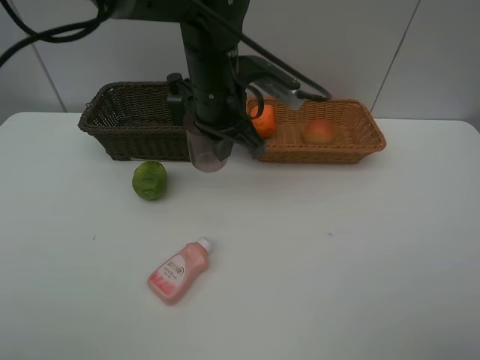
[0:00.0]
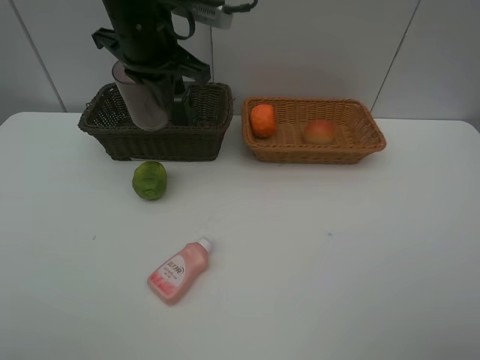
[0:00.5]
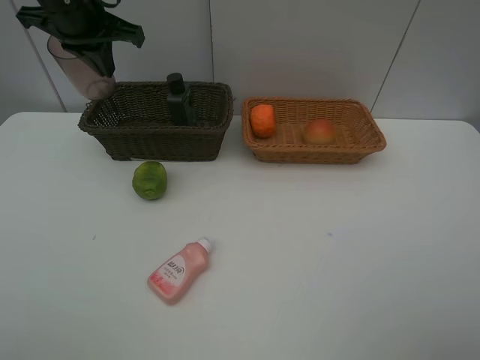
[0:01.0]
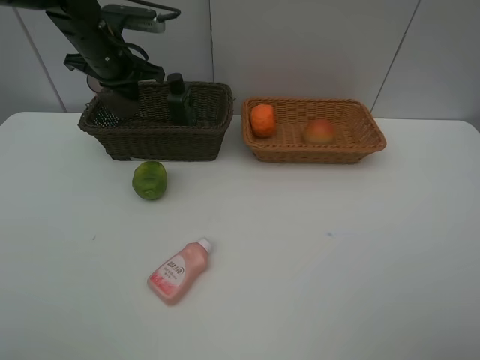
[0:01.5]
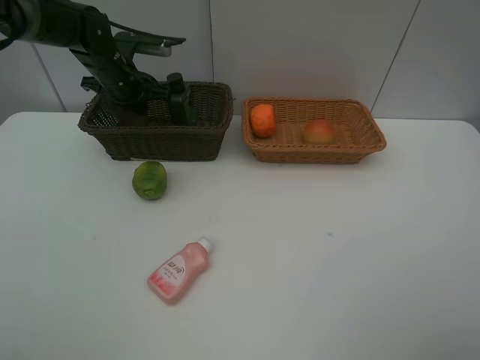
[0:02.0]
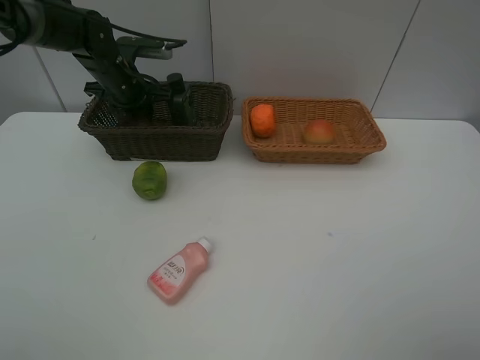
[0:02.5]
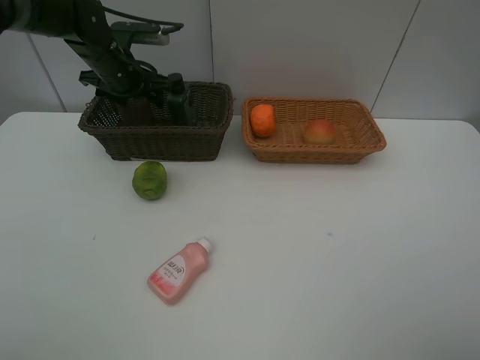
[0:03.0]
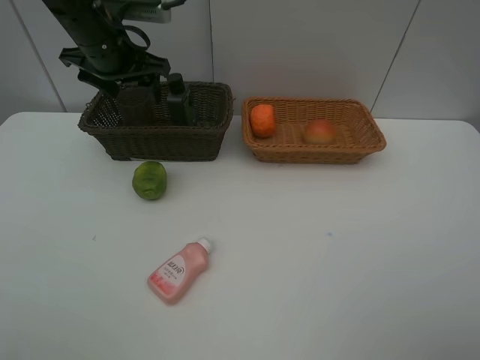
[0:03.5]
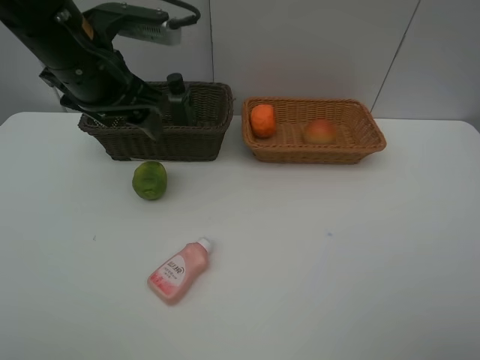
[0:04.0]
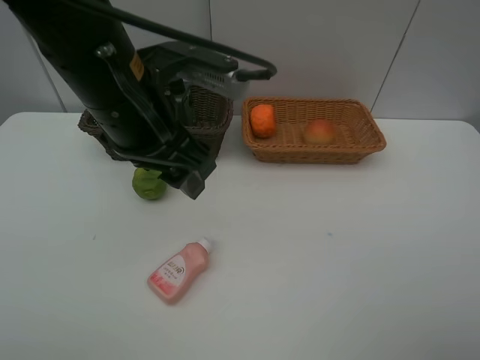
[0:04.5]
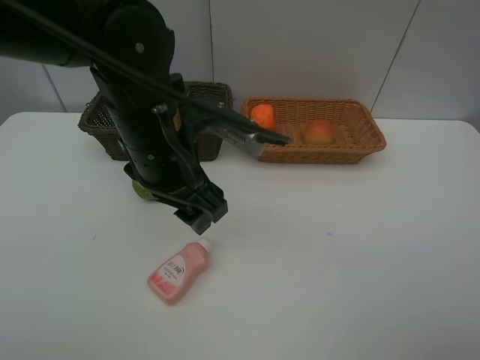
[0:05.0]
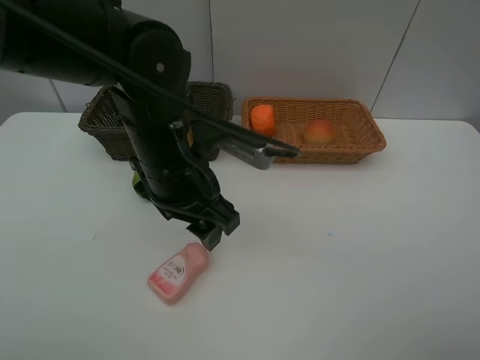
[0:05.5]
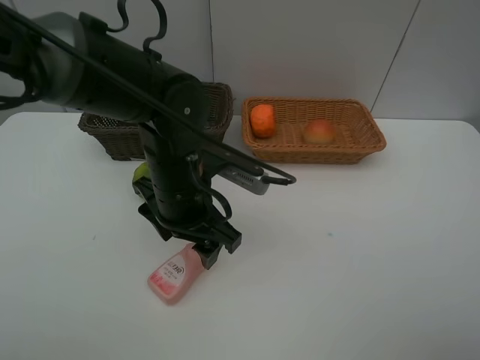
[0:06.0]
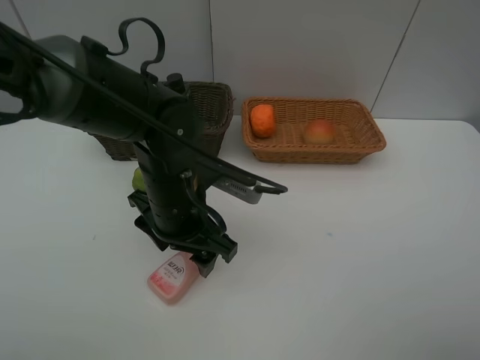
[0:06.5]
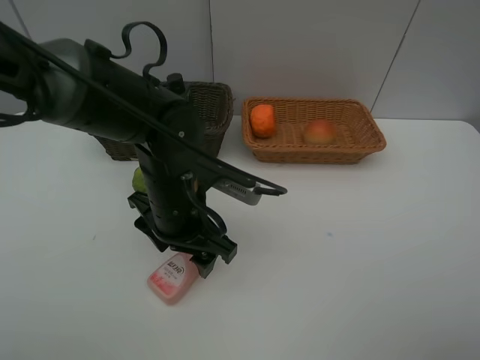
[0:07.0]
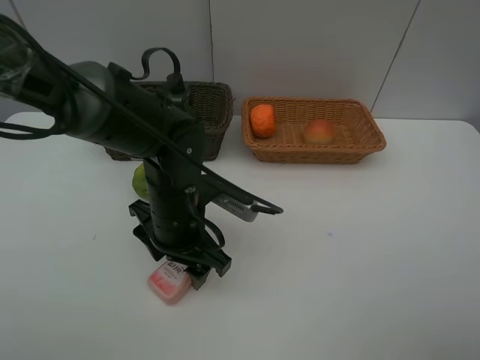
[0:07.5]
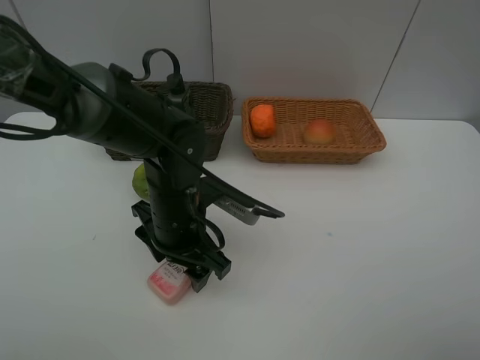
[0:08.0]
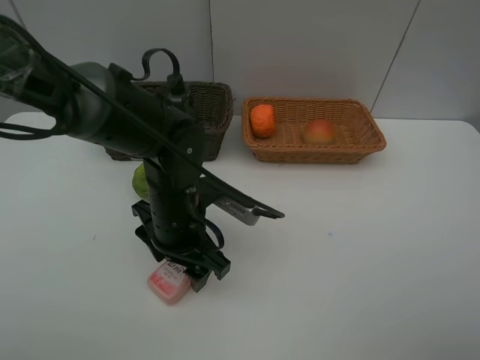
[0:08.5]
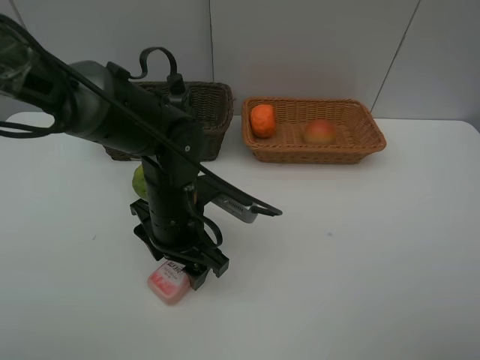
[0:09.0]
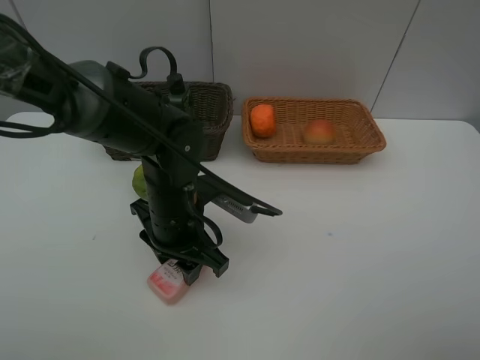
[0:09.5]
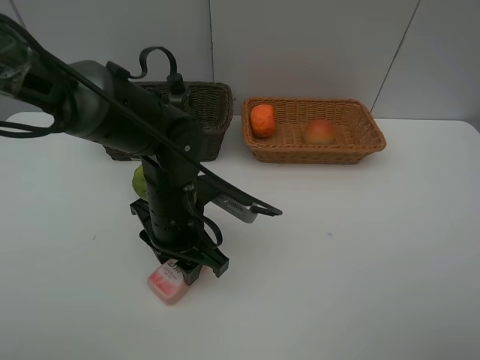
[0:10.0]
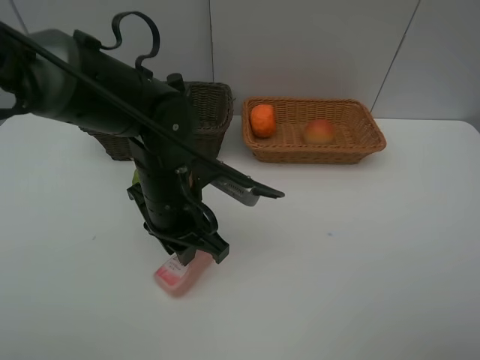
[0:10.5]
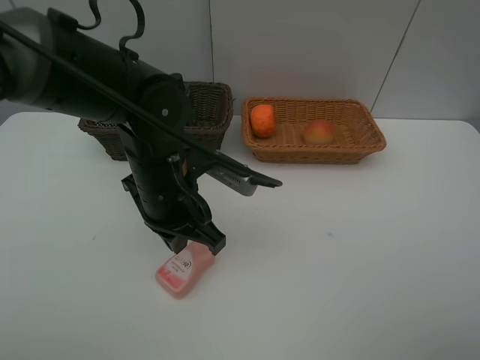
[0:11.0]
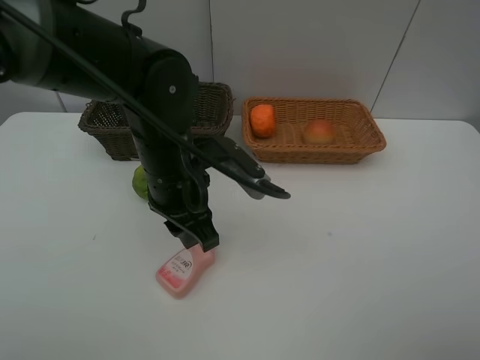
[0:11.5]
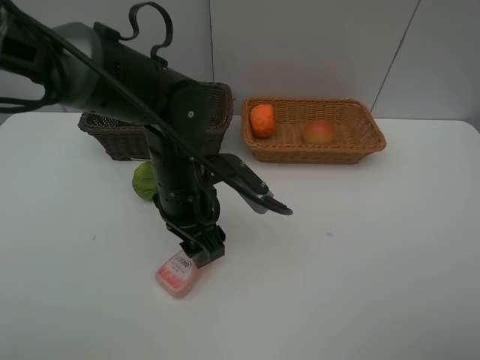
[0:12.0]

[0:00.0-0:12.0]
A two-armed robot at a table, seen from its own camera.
Task of the whole recording: place multiple objects separately in different baskets.
0:00.0 to 0:02.0: The left gripper heads to the left and forward, covering approximately 20 cm.
0:02.0 to 0:04.0: The left gripper moves backward and upward, approximately 20 cm, and opens.
0:04.0 to 0:06.0: The left gripper heads downward, to the right and backward, covering some 15 cm.
0:06.0 to 0:08.0: The grippers move only a little.
0:08.0 to 0:10.0: Both grippers stay put.
0:10.0 to 0:12.0: The left gripper closes and opens again.

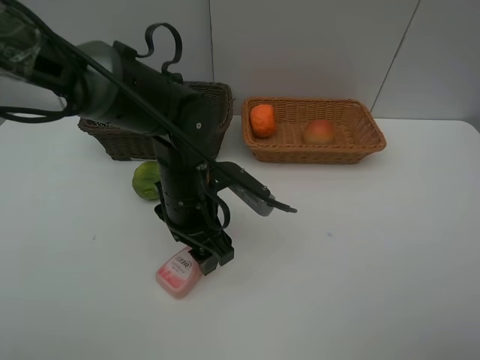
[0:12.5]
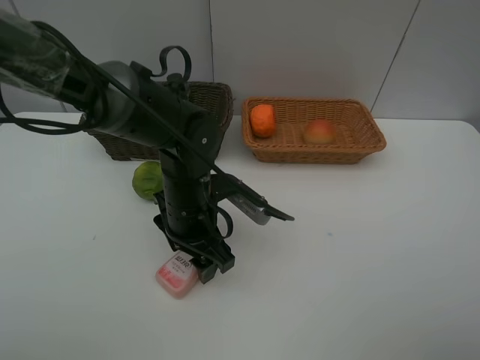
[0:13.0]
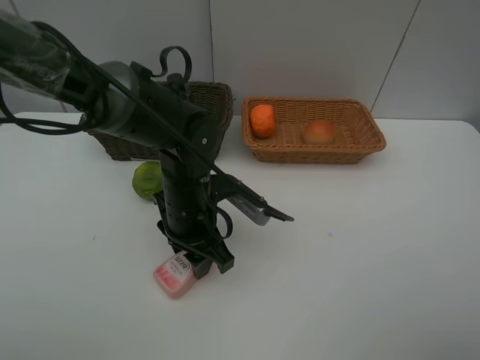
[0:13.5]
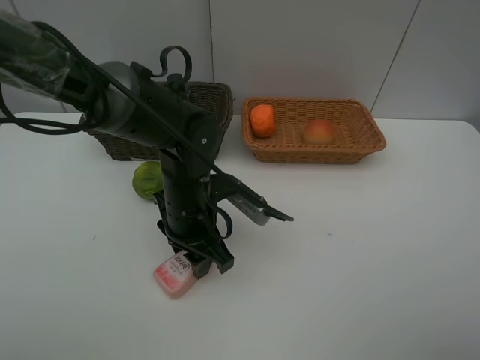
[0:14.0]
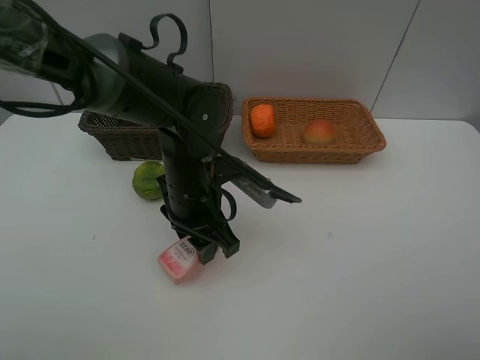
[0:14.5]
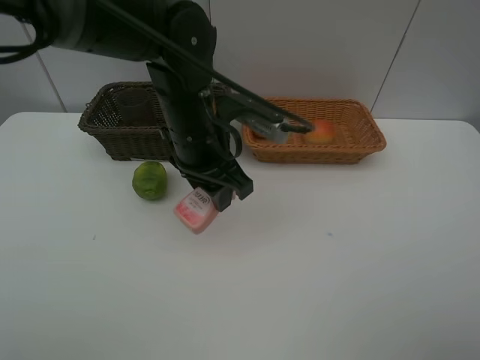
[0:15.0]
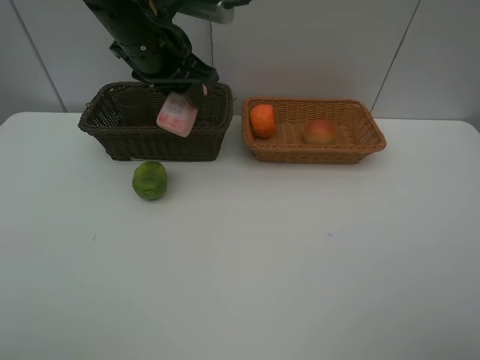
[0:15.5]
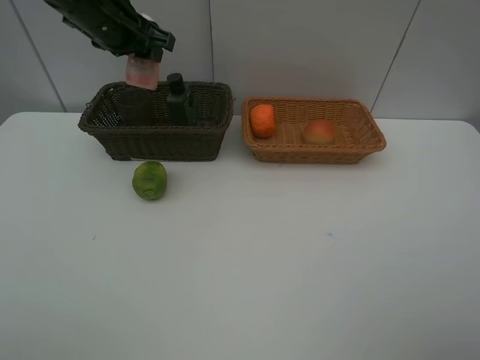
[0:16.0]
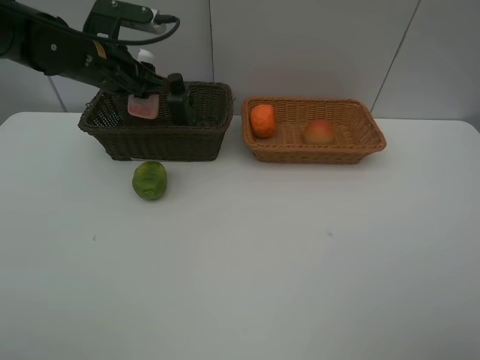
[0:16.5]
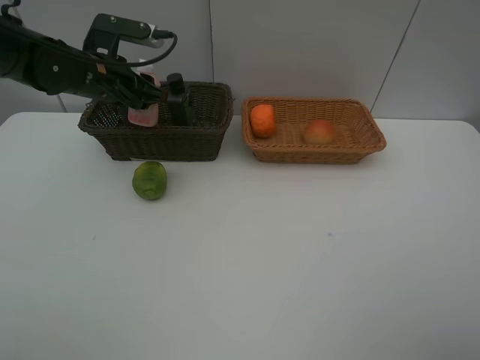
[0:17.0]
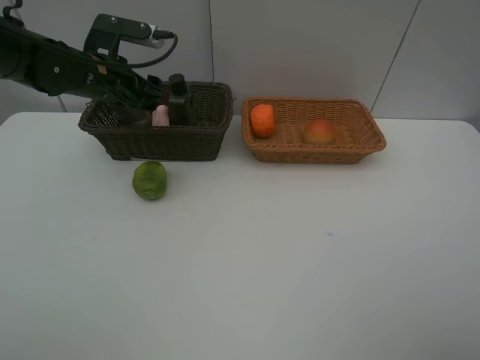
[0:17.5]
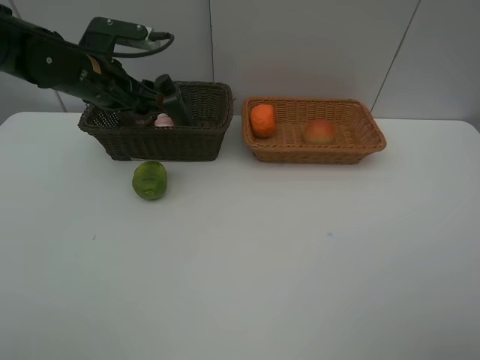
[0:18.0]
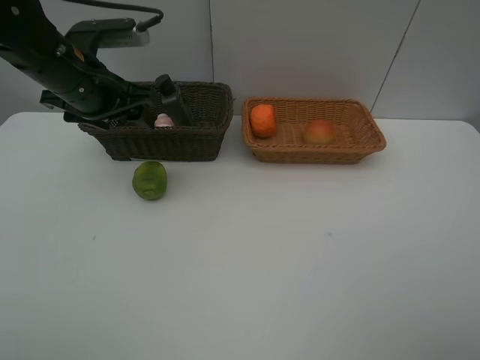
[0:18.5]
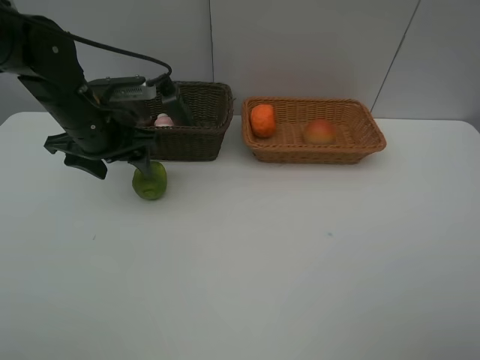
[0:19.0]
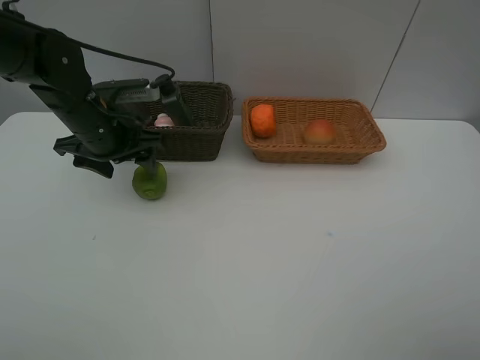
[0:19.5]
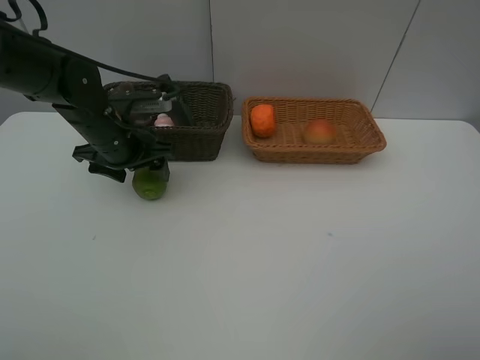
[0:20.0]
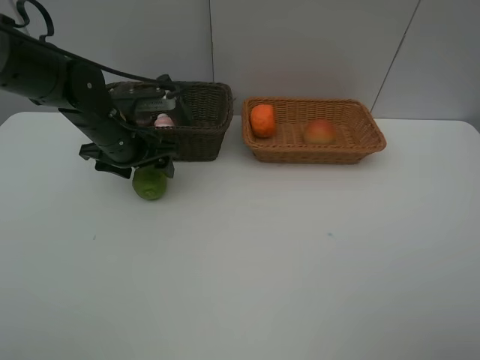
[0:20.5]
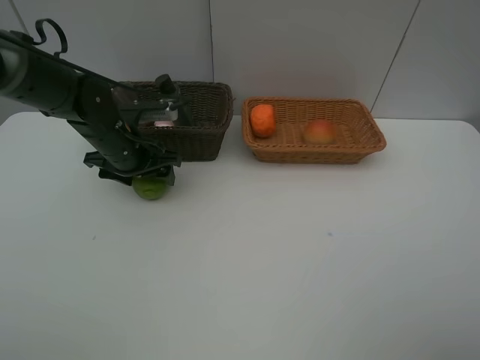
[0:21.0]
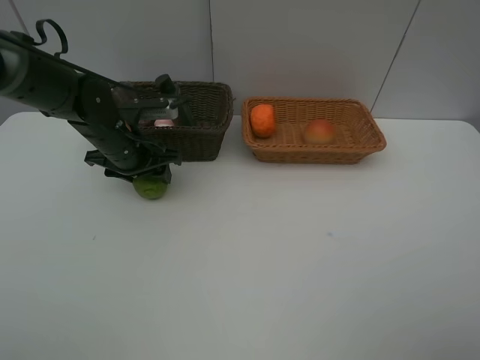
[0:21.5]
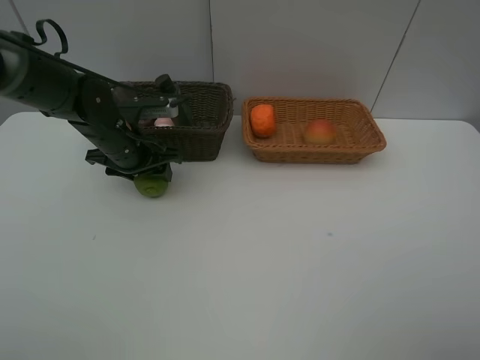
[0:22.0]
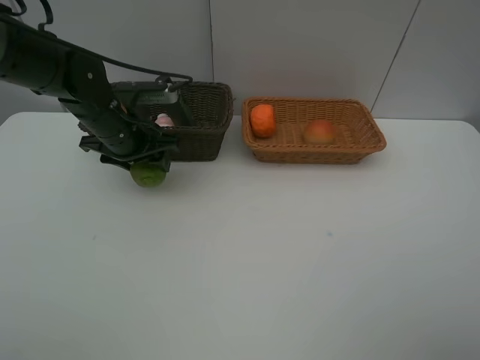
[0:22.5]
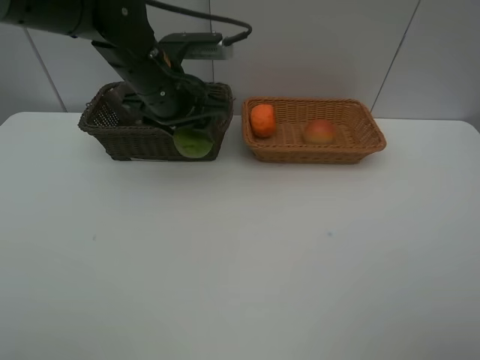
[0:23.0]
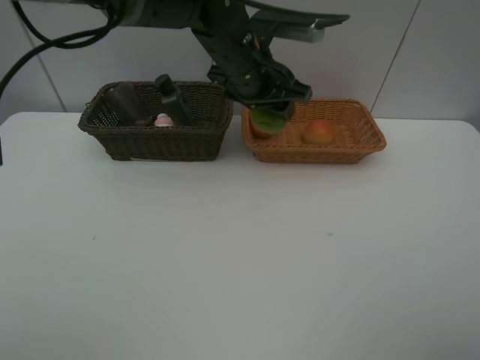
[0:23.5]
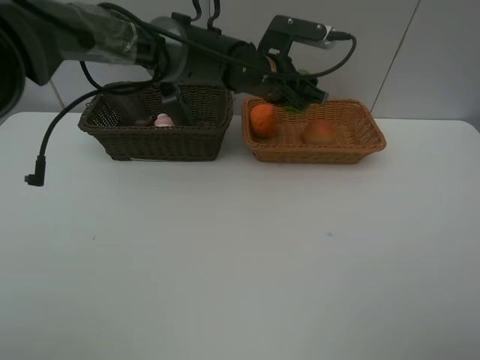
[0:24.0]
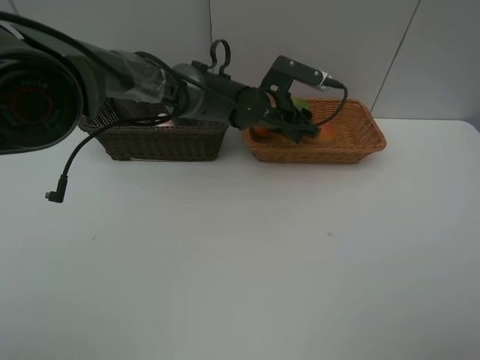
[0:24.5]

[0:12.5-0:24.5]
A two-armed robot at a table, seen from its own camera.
Task of the whole recording: place multiple objects separately in different baskets.
0:12.5 to 0:14.5: The grippers stay close to where they were, moving slightly.
0:14.5 to 0:16.5: The left gripper is displaced to the left, forward and upward by some 20 cm.
0:16.5 to 0:18.5: The left gripper travels backward by approximately 5 cm.
0:18.5 to 0:20.5: The left gripper is displaced downward by about 10 cm.
0:20.5 to 0:22.5: The grippers stay close to where they were, moving slightly.
0:22.5 to 0:24.5: The left gripper heads to the right, covering about 20 cm.

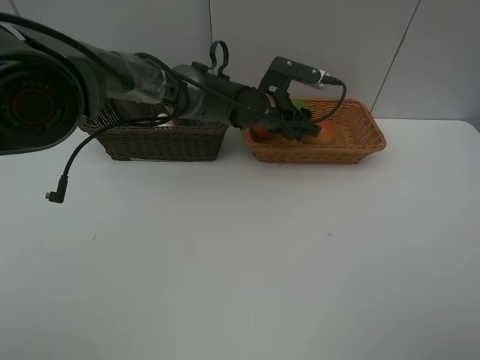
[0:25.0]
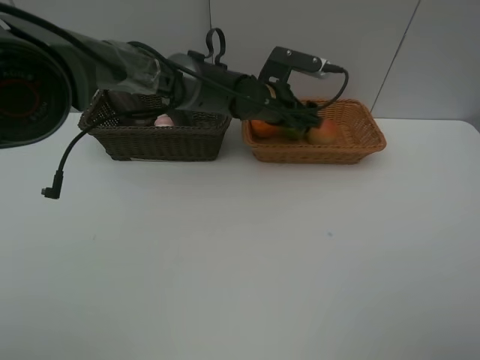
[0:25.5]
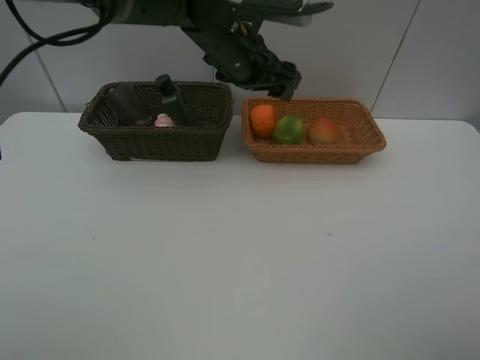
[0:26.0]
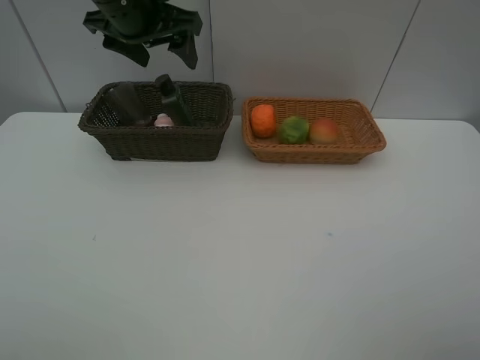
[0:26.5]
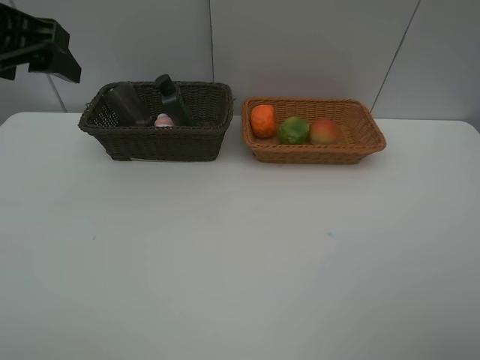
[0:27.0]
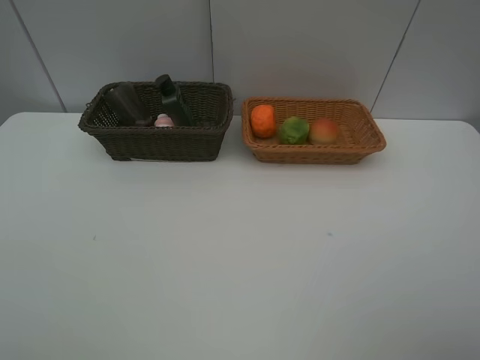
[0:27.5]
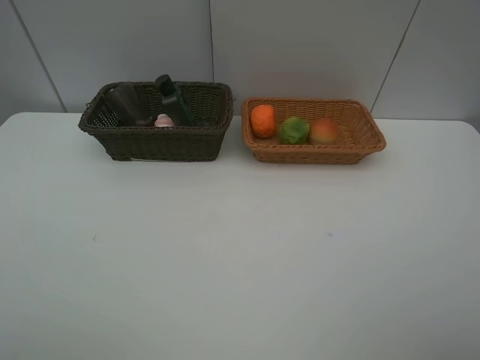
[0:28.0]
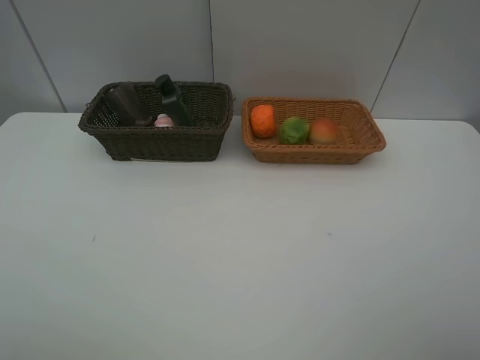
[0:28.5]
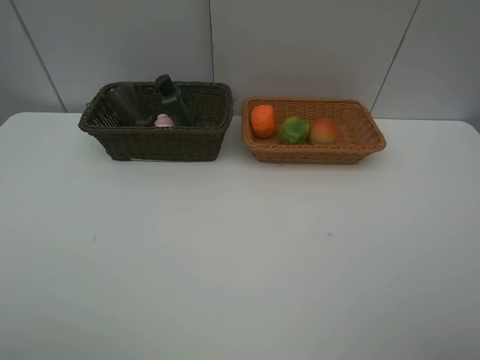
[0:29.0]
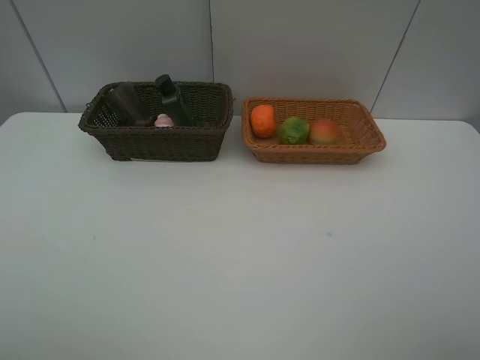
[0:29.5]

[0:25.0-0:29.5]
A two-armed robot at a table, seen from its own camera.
Task of the whole recording: place multiple objects separately in different baskets.
0:25.0 to 0:27.0: The left gripper moves to the left, upward and backward, about 40 cm.
0:27.0 to 0:29.5: The left gripper travels backward by some 25 cm.
